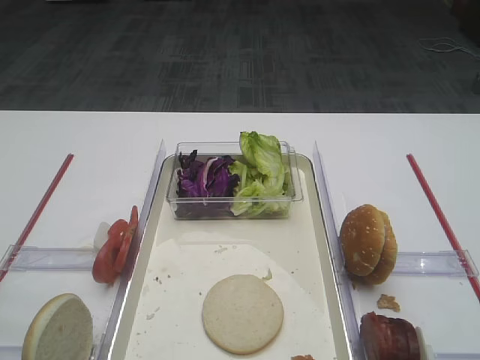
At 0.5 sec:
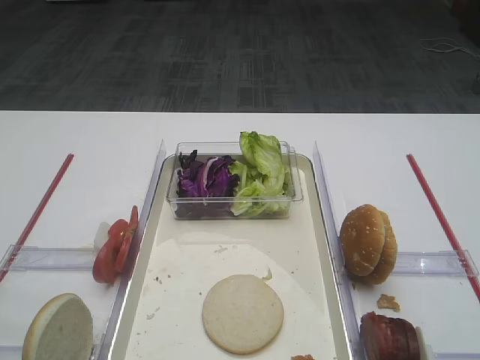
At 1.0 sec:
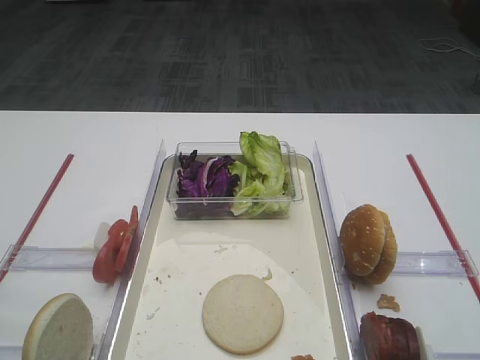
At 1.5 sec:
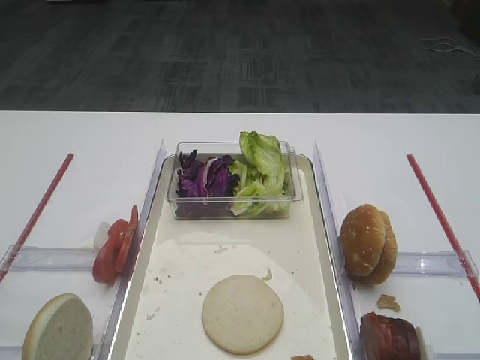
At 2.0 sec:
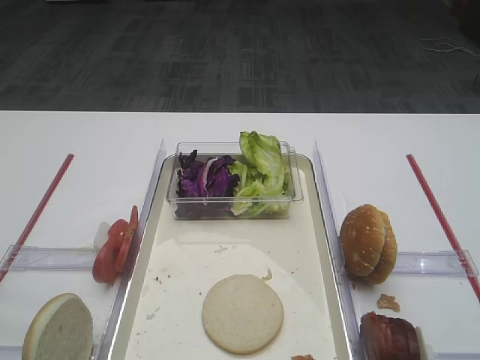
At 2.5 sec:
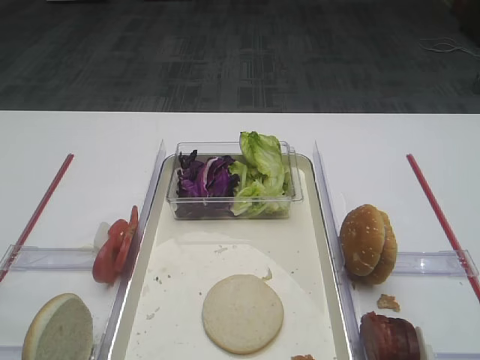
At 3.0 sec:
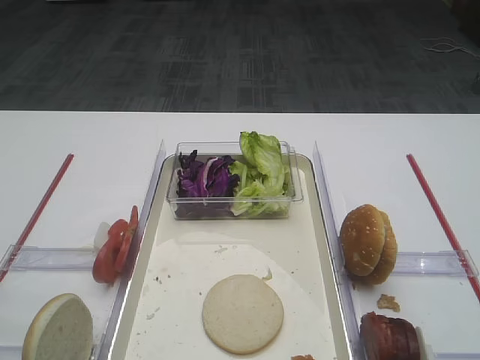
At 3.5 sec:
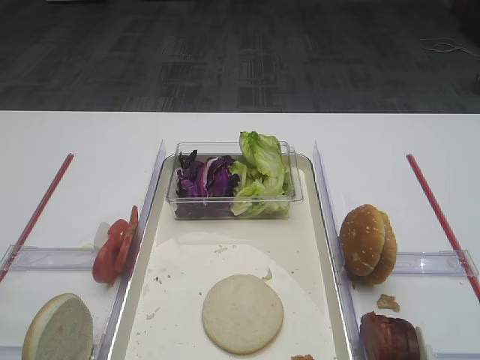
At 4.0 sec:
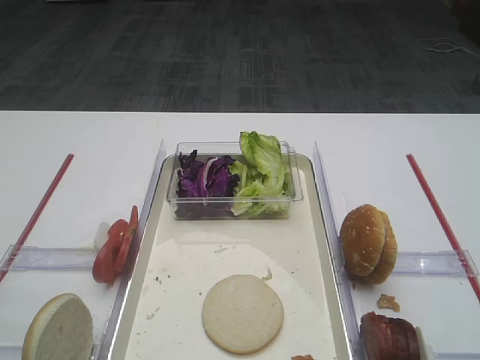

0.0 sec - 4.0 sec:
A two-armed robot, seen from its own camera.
2.0 sec - 4.0 sec: Neither gripper changes place.

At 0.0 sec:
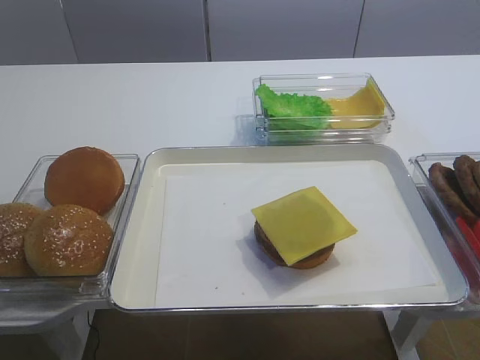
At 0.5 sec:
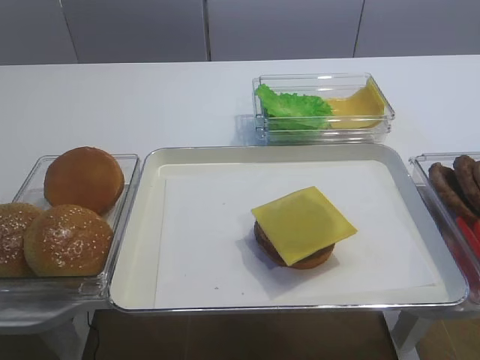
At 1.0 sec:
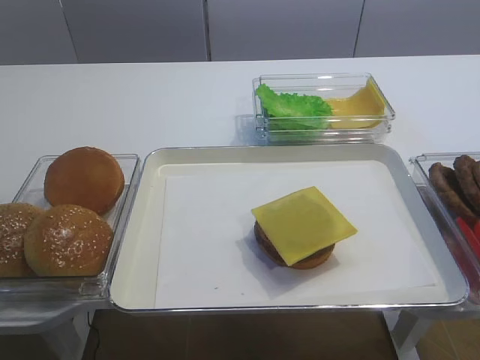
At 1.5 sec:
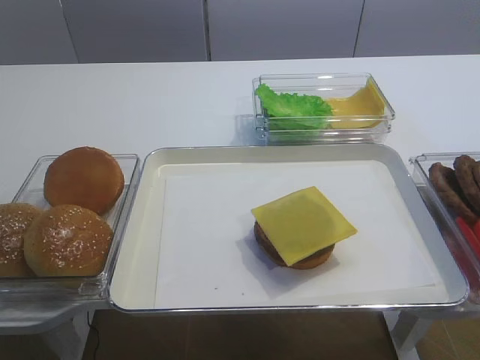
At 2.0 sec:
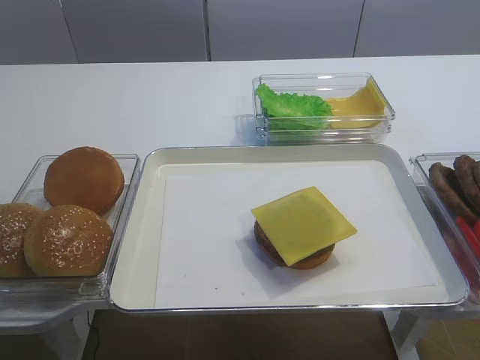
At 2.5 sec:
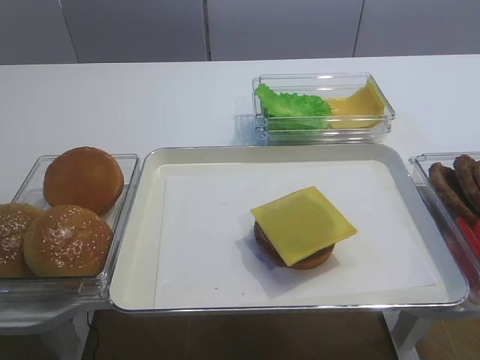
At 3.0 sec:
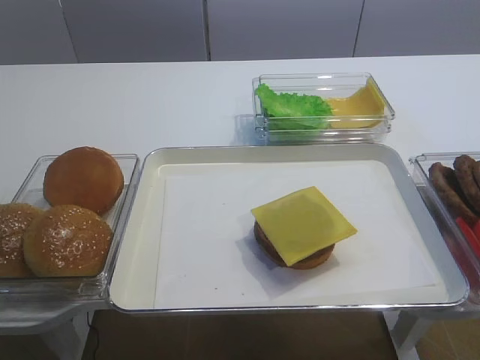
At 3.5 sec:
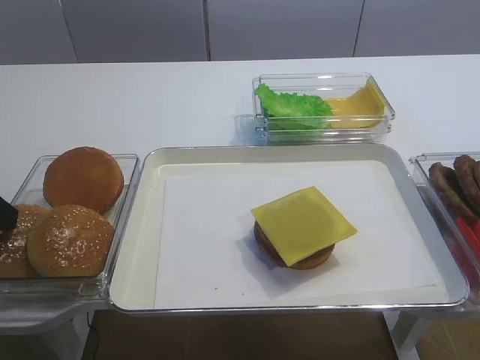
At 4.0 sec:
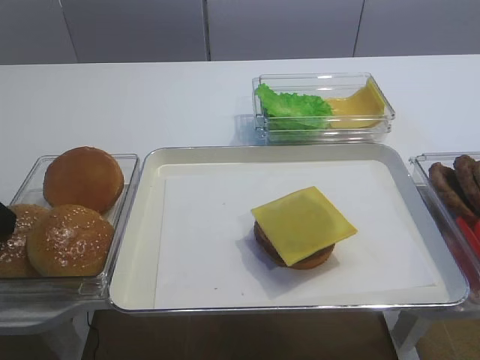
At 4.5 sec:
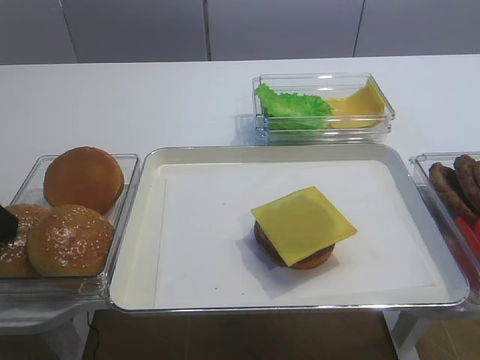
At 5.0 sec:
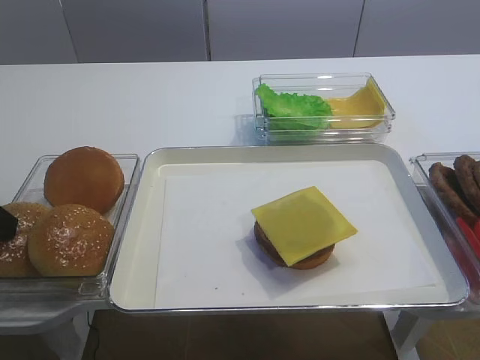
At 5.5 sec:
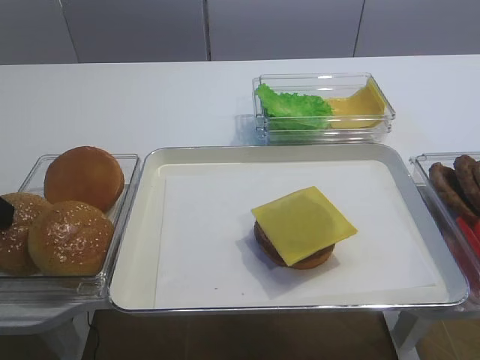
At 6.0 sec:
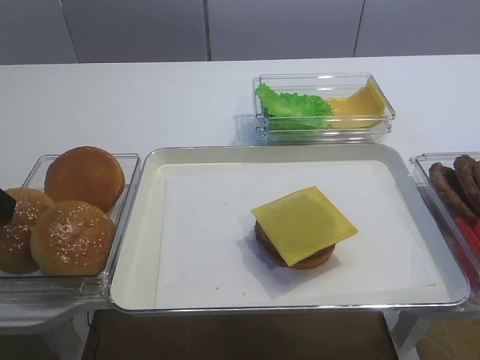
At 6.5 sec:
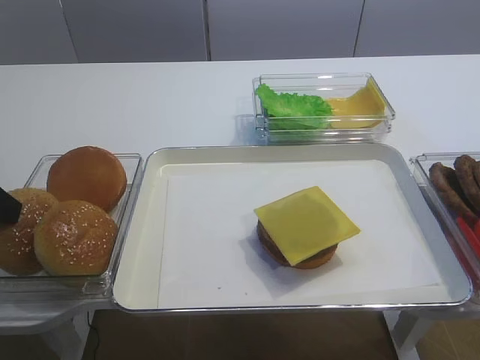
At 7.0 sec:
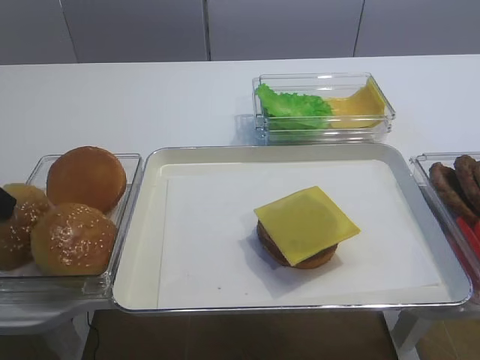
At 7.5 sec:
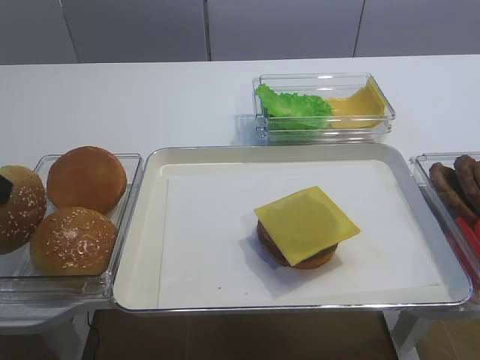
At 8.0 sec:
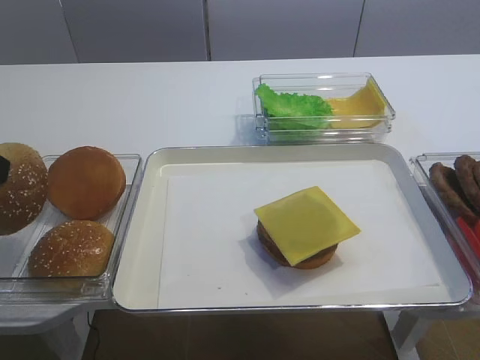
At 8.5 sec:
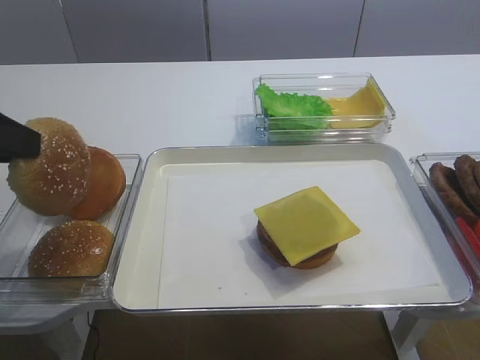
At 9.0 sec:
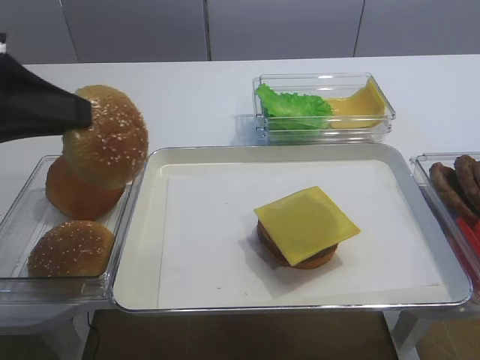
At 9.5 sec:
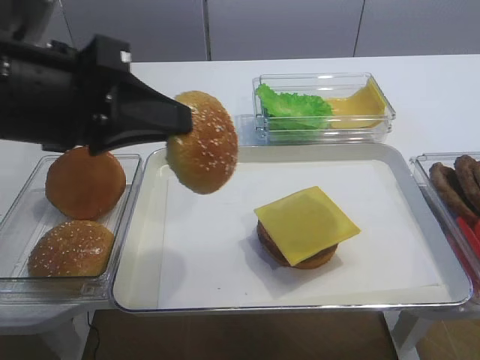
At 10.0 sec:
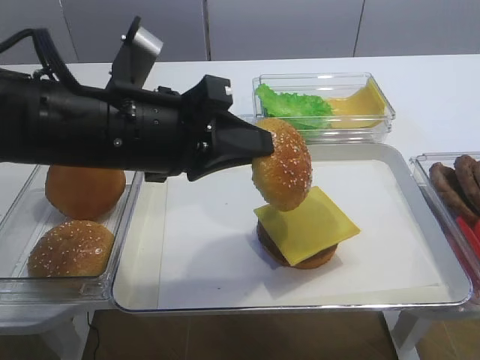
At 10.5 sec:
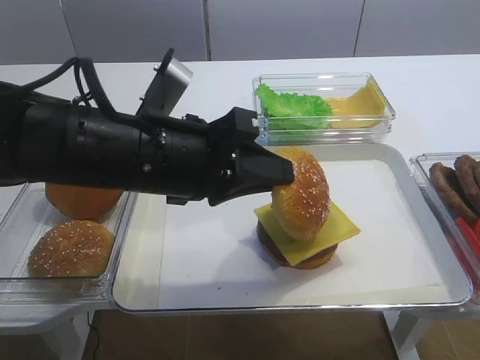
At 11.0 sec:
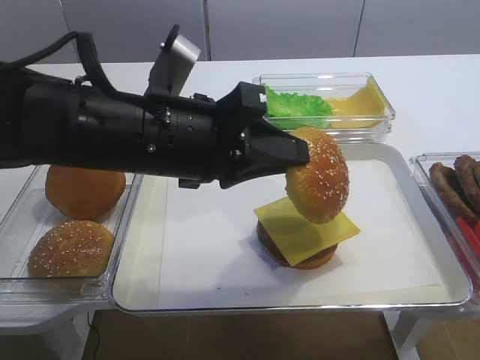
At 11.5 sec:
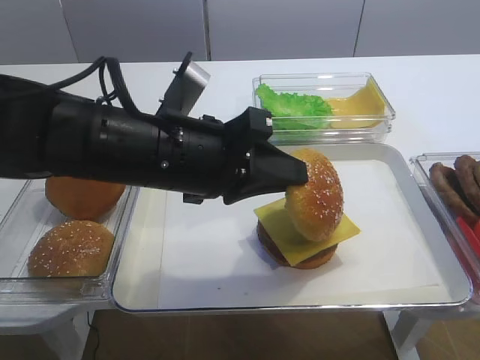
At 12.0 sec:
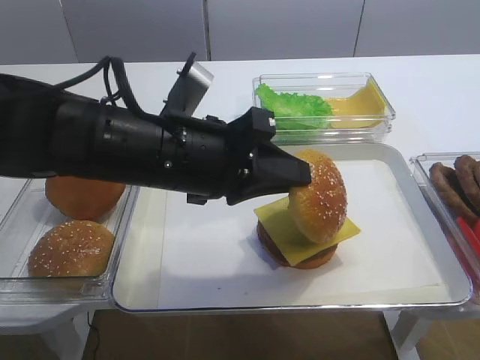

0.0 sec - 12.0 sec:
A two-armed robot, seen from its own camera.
Step, 0.0 sec - 7.0 sec: Pick up the hamburger lid with the left gripper.
4.0 sec - 6.0 sec: The left gripper closes its fingers.
6.0 sec - 8.0 sec: The left gripper closes its fingers.
8.0 sec - 10.0 sec: The left gripper heads to the right, covering approximately 20 cm.
10.0 sec - 12.0 sec: The grippers move only a little.

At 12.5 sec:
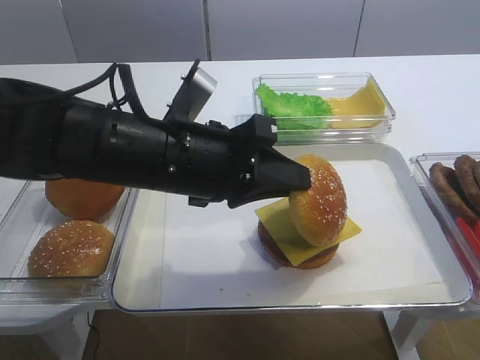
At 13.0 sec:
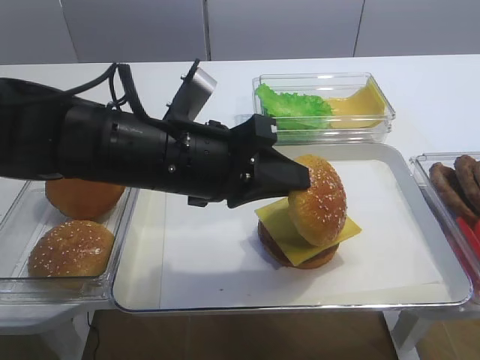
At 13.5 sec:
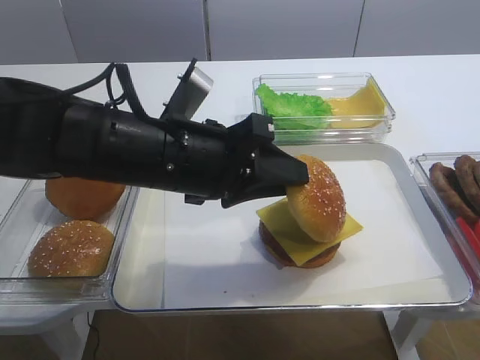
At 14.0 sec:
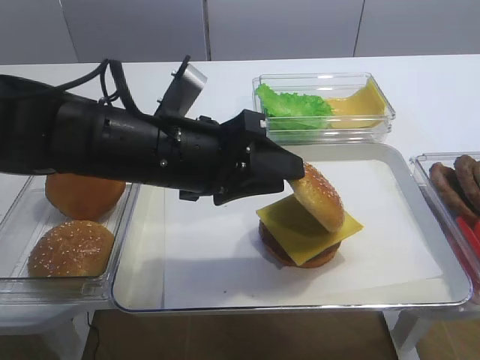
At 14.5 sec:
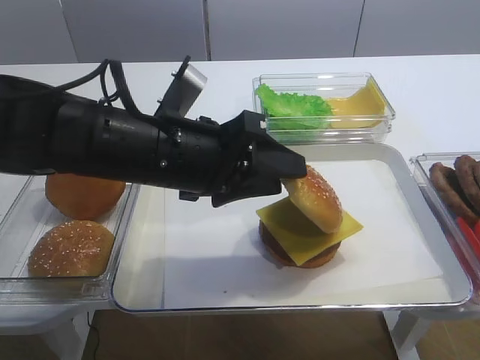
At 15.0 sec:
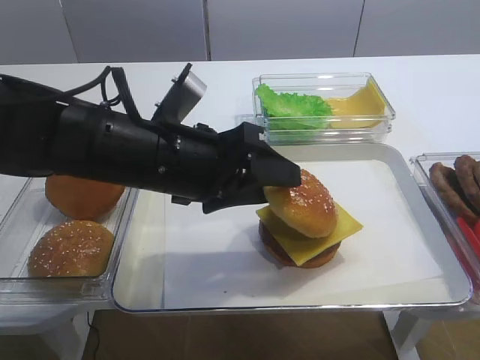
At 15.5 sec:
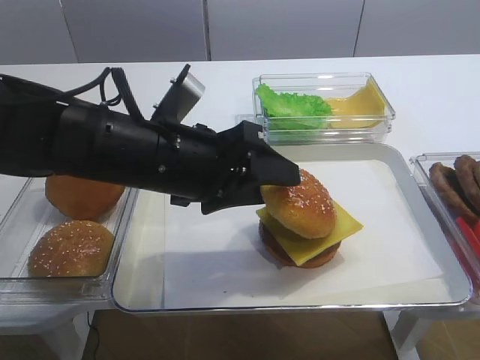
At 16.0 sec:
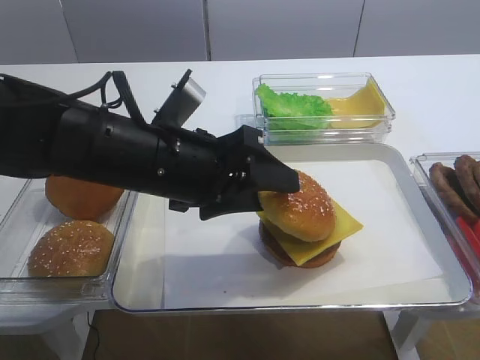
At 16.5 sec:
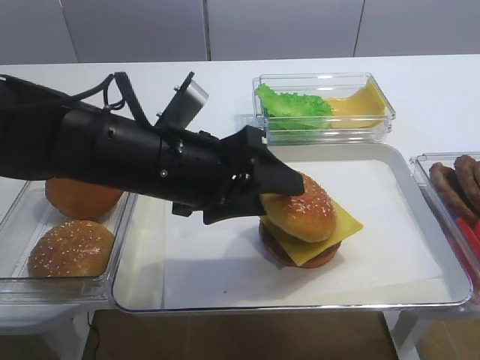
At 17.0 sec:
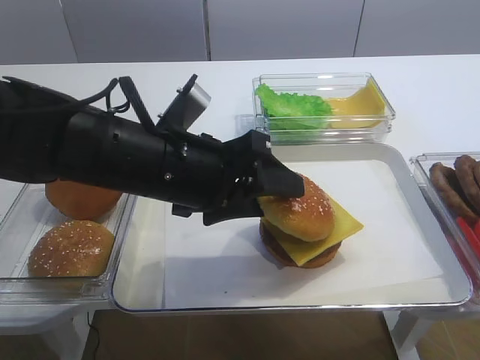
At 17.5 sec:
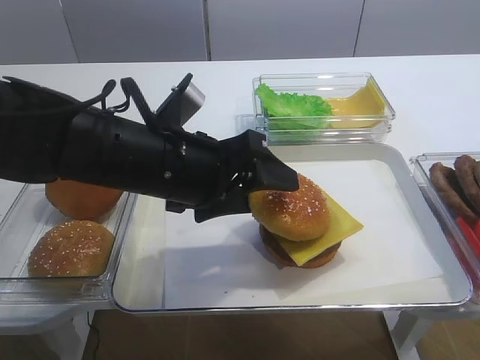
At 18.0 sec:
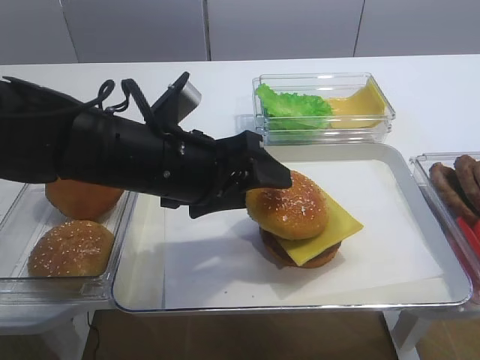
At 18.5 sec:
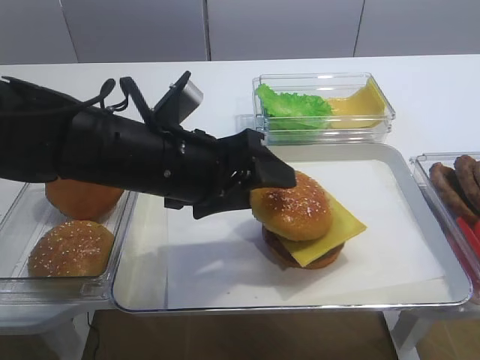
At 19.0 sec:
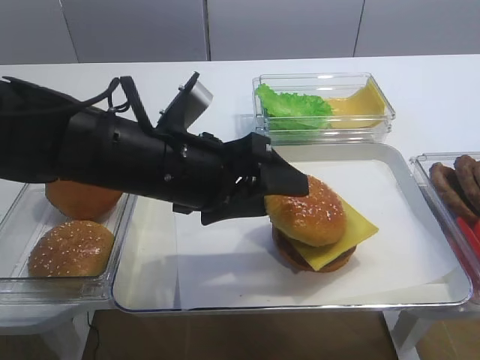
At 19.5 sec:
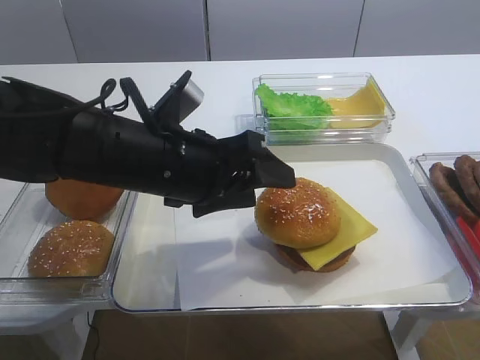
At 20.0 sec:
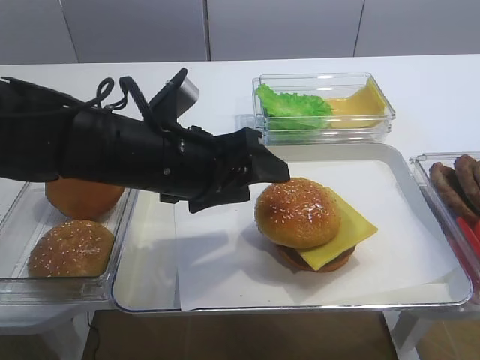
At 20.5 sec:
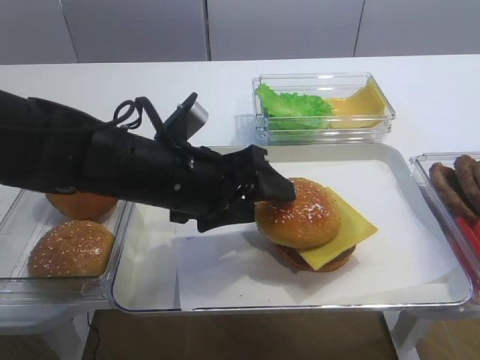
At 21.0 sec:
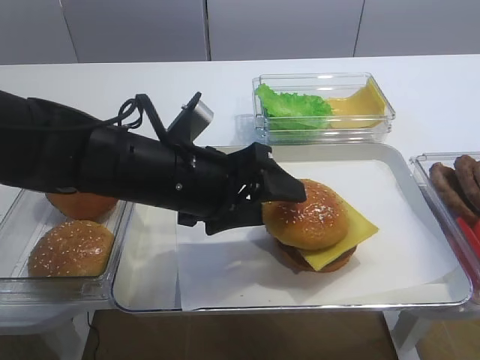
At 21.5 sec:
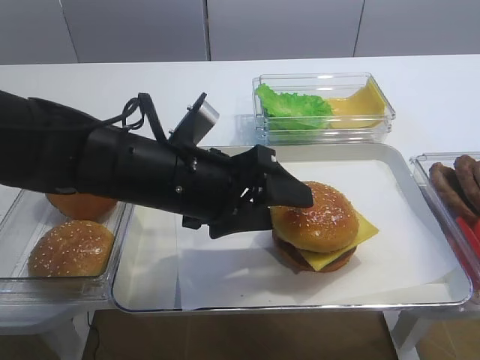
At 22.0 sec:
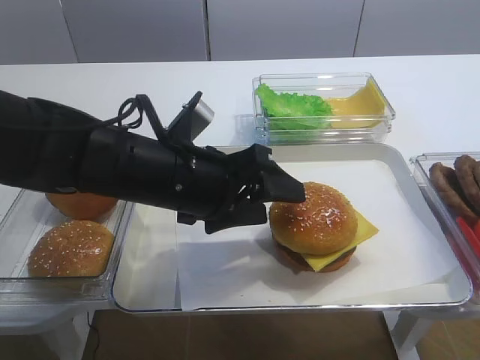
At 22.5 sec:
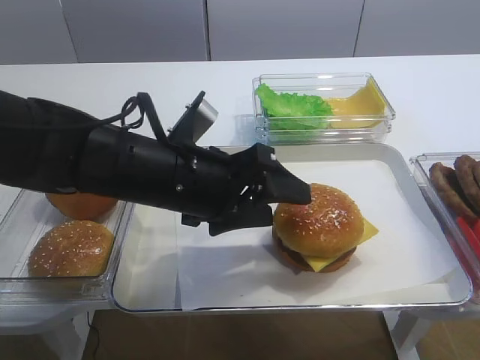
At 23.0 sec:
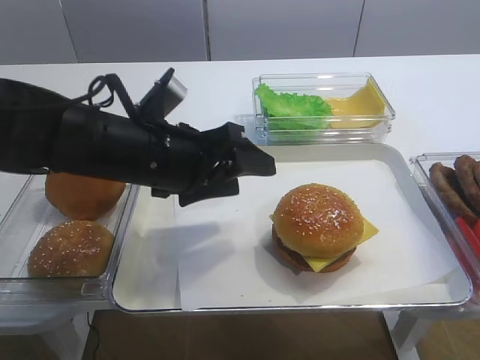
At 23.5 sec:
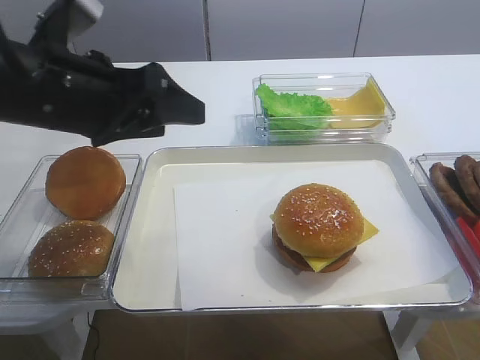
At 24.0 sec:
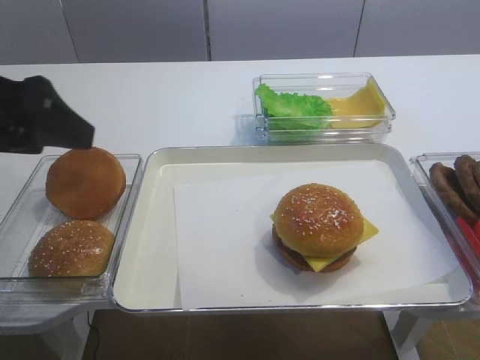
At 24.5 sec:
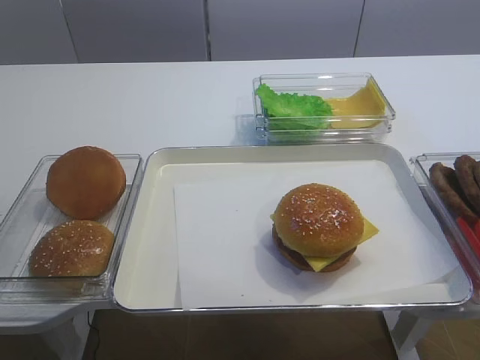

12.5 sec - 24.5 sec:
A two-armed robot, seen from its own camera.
Step, 12.5 sec - 22.5 sec: Place the hamburger lid on the cheese slice with the left gripper.
12.5 sec - 14.5 sec: The left gripper opens its fingers.
14.5 sec - 22.5 sec: The grippers make only small movements.
22.5 sec - 24.5 sec: The left gripper goes approximately 30 cm to the left, upward and backward.
